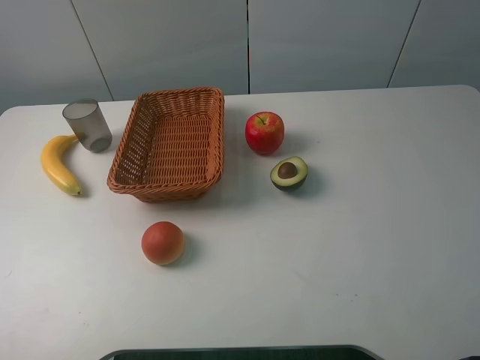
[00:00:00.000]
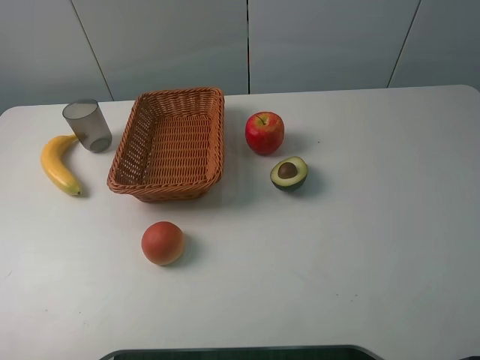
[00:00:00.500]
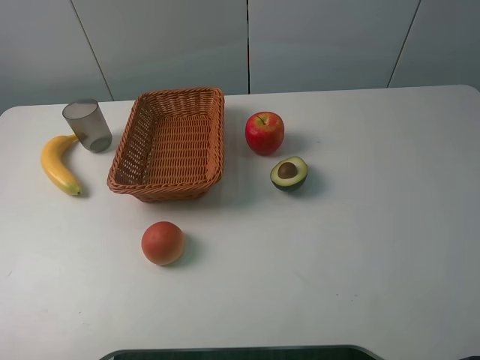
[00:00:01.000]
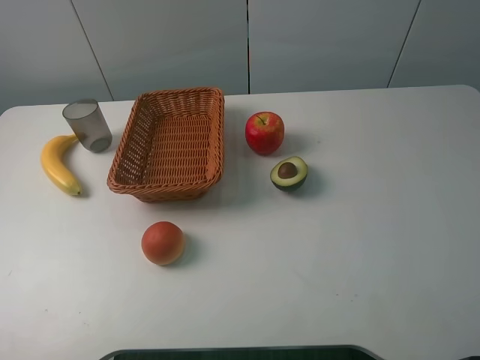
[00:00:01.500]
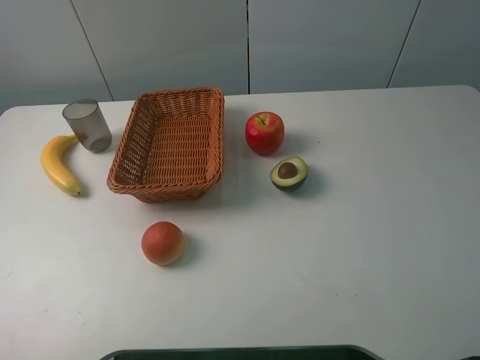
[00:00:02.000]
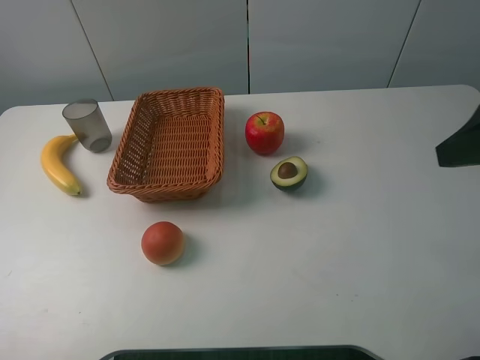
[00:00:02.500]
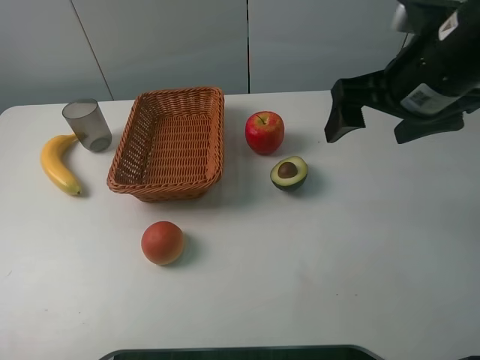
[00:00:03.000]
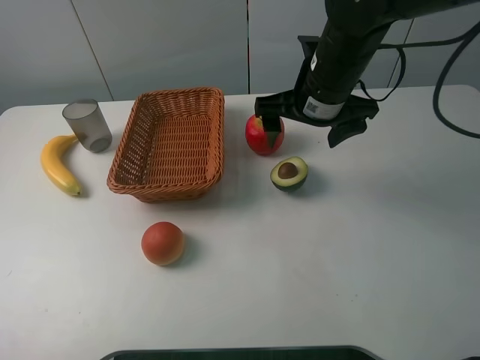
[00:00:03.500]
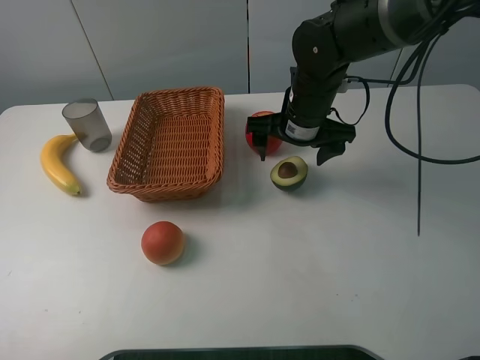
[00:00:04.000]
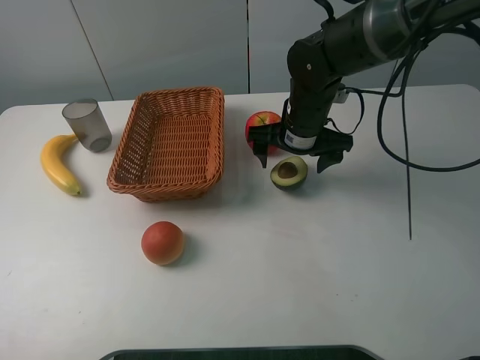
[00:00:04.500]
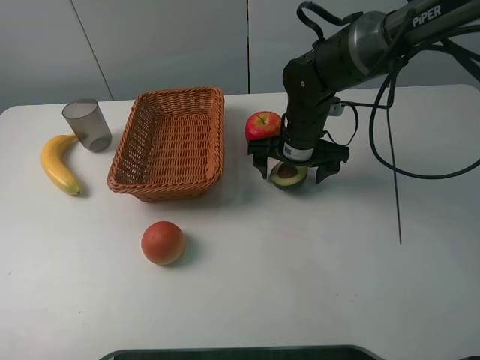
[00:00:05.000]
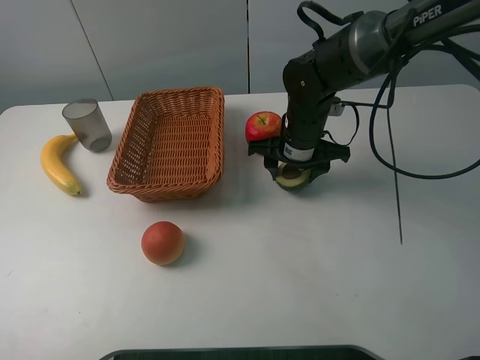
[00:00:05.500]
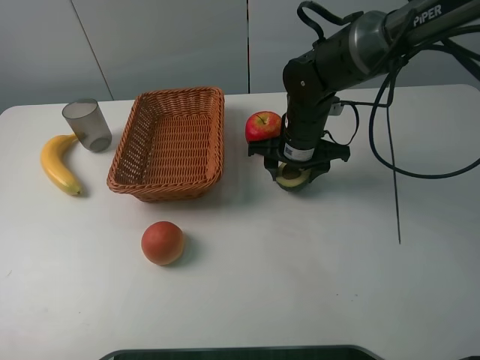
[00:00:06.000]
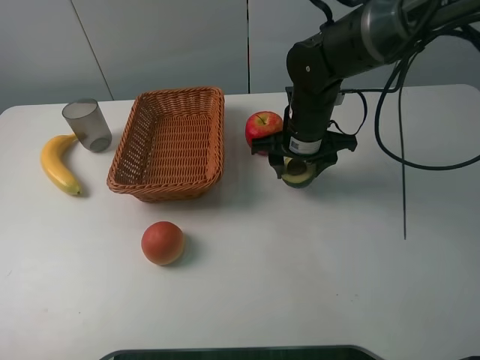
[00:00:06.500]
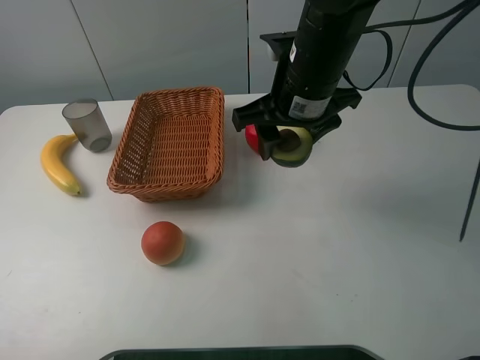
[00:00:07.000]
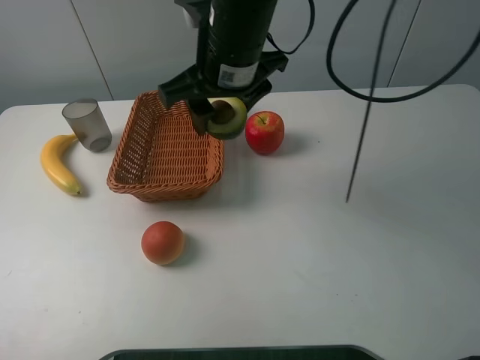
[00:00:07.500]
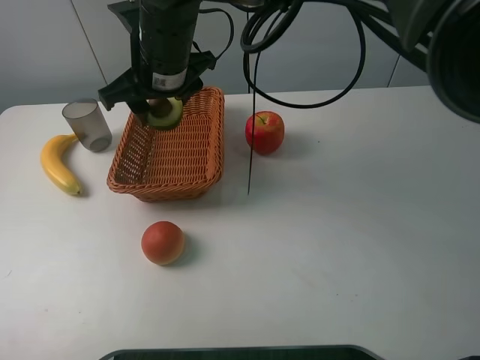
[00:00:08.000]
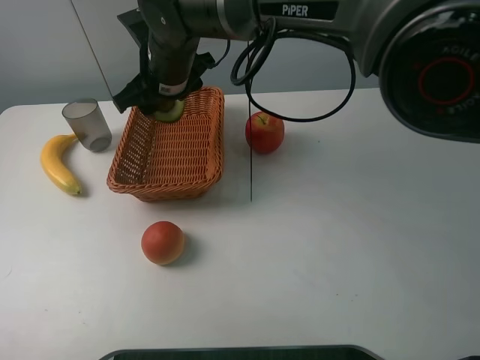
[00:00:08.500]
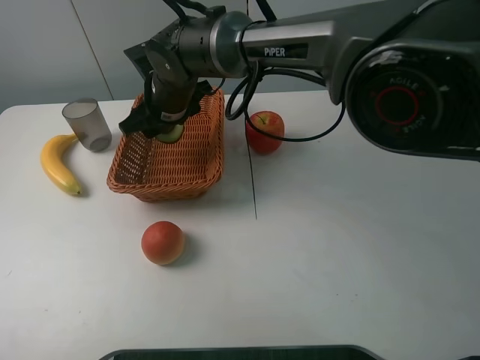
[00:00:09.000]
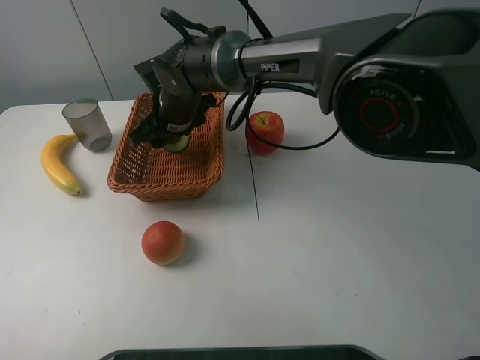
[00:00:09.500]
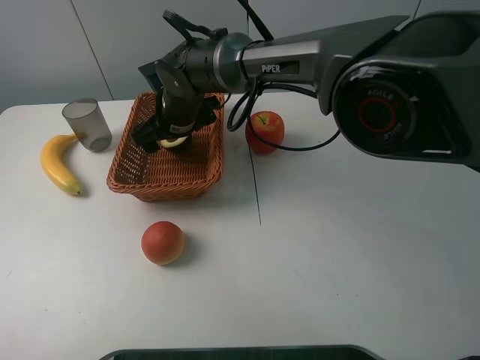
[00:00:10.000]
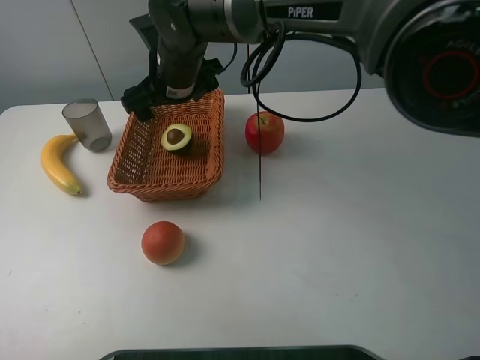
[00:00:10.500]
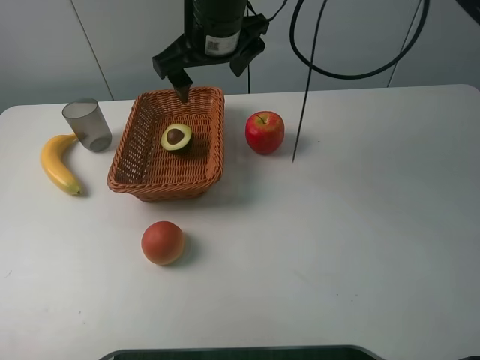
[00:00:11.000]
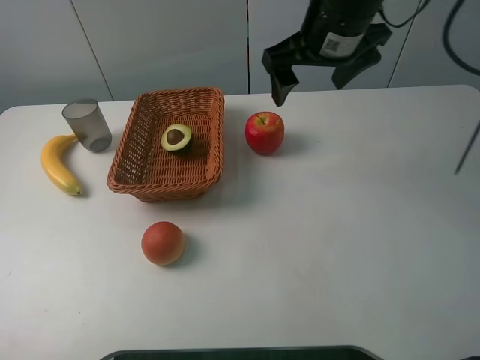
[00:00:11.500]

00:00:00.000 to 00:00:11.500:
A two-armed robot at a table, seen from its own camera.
00:00:02.000 to 00:00:04.000: The right gripper is displaced forward, to the left and downward by roughly 40 cm.
00:00:04.000 to 00:00:06.000: The right gripper closes up.
00:00:06.000 to 00:00:07.500: The right gripper shifts some 20 cm upward and to the left.
00:00:07.500 to 00:00:09.500: The right gripper is displaced downward, to the left and forward by approximately 15 cm.
00:00:09.500 to 00:00:11.500: The right gripper shifts about 25 cm to the right and upward, and opens up.

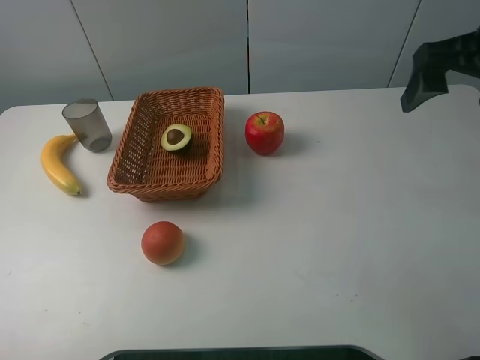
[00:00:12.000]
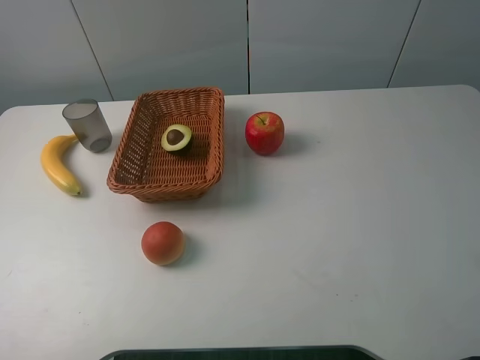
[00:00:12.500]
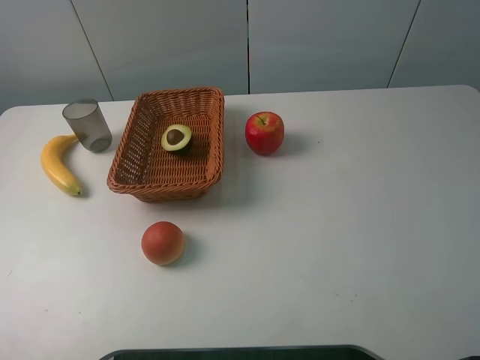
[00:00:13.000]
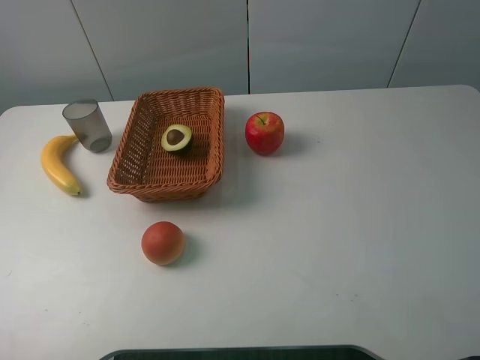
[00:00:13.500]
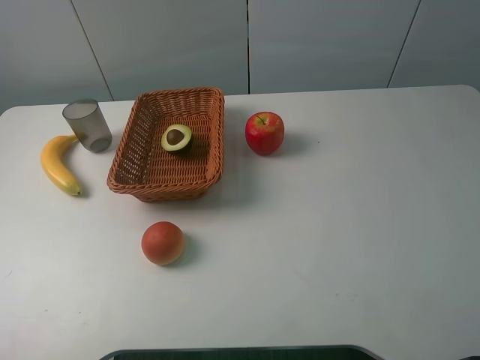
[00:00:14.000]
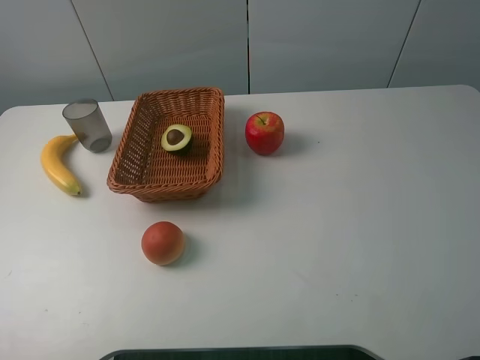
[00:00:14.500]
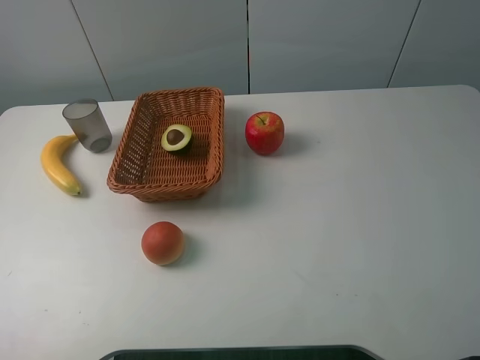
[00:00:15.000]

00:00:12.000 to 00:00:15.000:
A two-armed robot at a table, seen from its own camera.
00:00:12.000 to 00:00:13.500: The right gripper goes approximately 25 cm backward.
